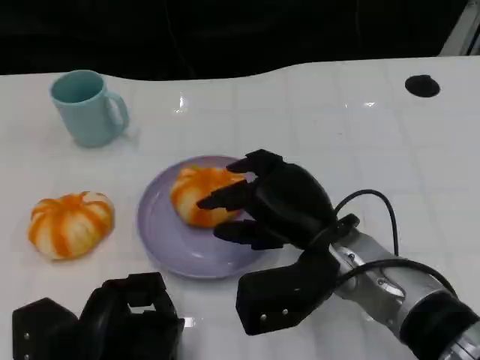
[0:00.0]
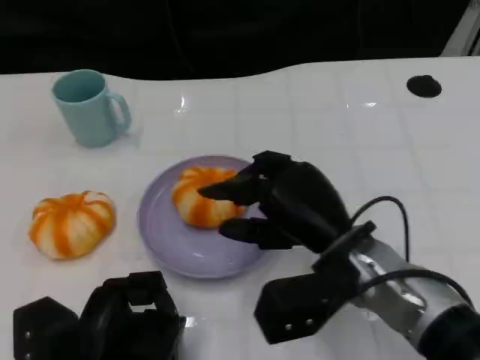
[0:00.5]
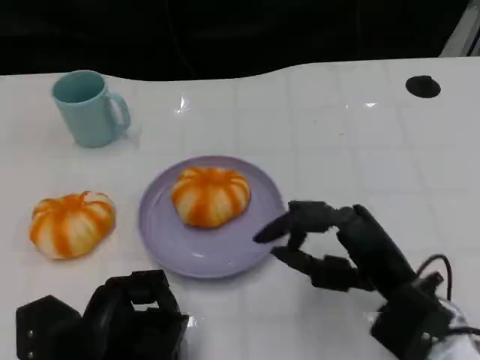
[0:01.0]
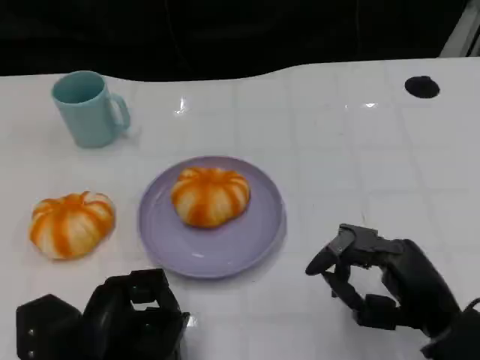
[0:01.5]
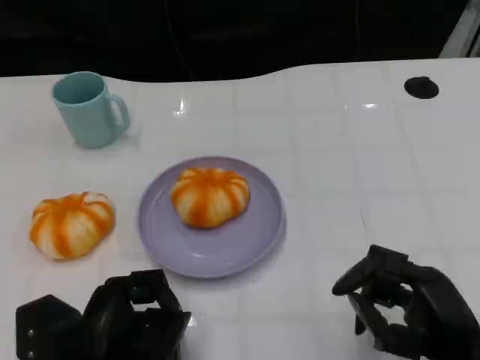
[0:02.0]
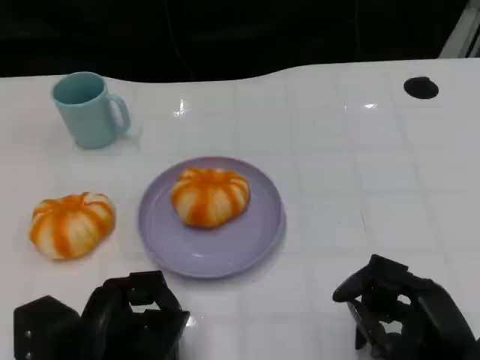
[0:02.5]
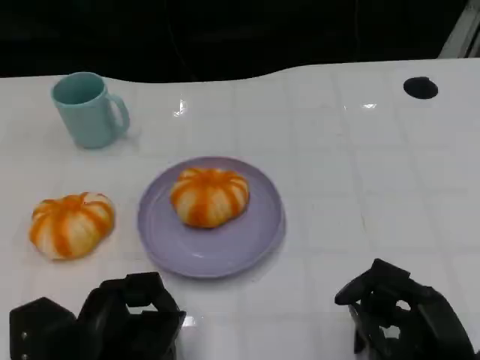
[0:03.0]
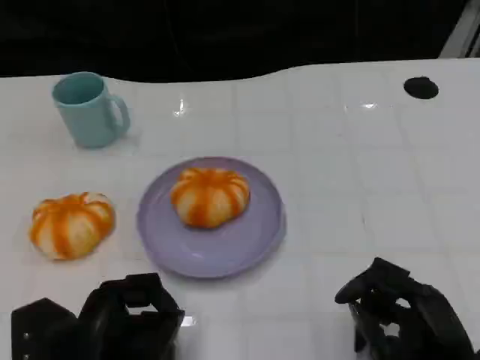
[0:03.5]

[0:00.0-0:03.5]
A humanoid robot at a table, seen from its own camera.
Task of the whole recording: Grasp the bread from the table and place it into the plate.
0:00.0 to 0:02.0: The right hand heads to the right and backward, covering approximately 15 cm.
0:02.0 to 0:03.5: The hands stay close to where they were, moving slightly.

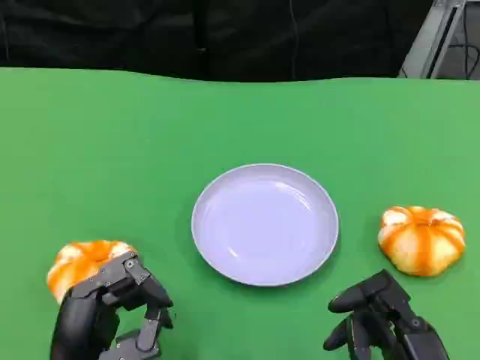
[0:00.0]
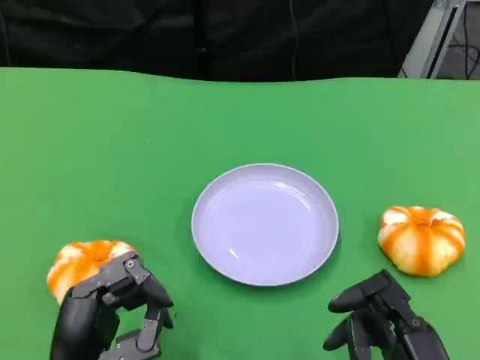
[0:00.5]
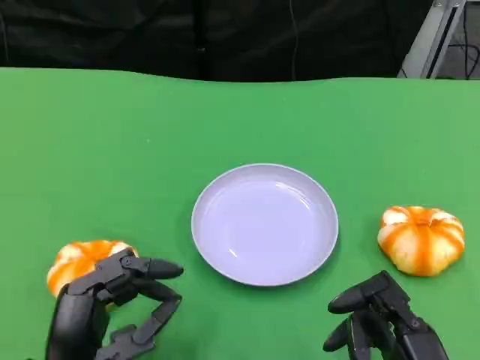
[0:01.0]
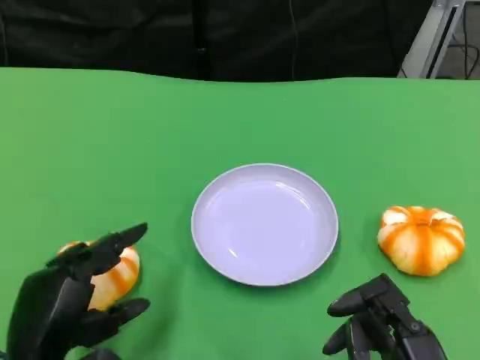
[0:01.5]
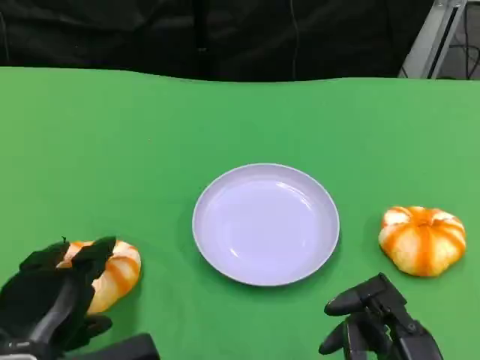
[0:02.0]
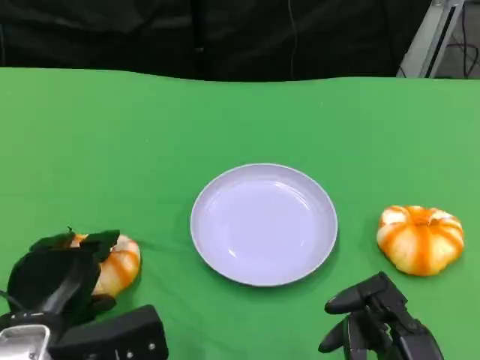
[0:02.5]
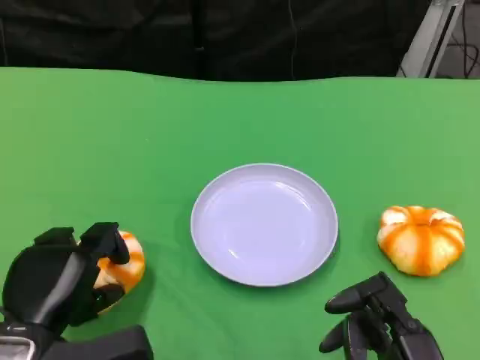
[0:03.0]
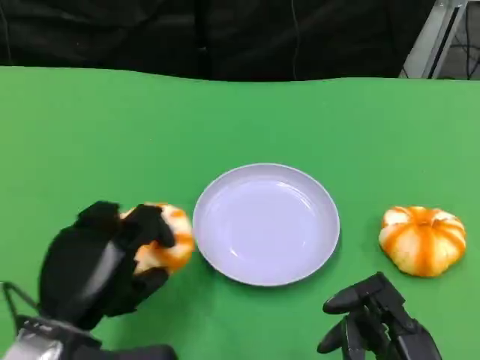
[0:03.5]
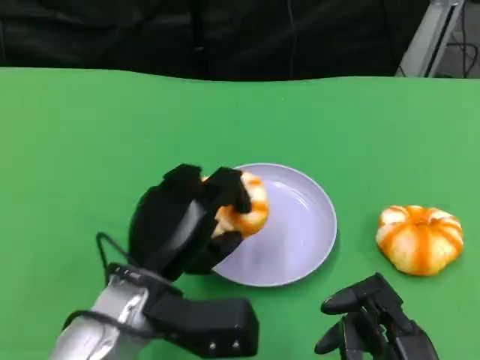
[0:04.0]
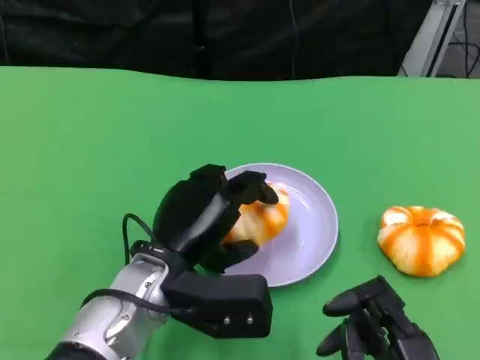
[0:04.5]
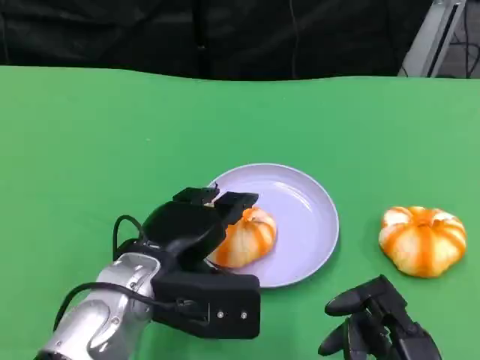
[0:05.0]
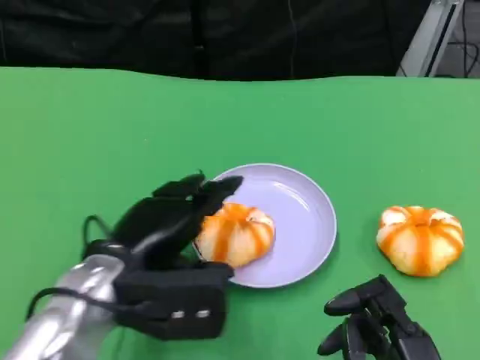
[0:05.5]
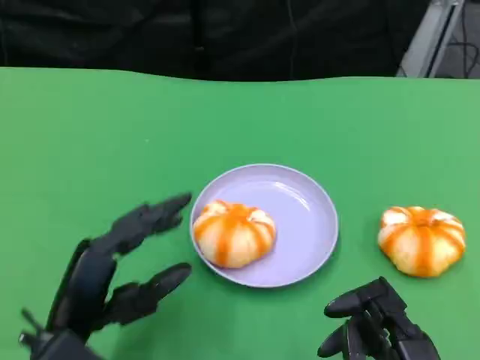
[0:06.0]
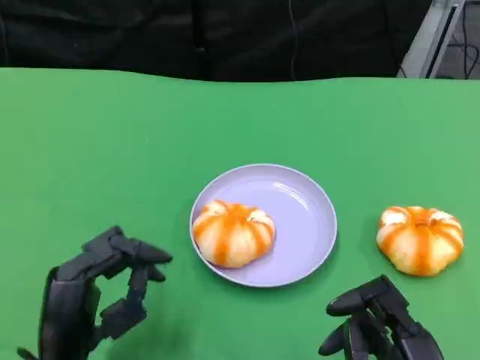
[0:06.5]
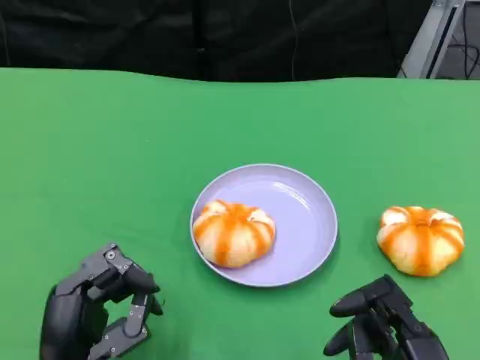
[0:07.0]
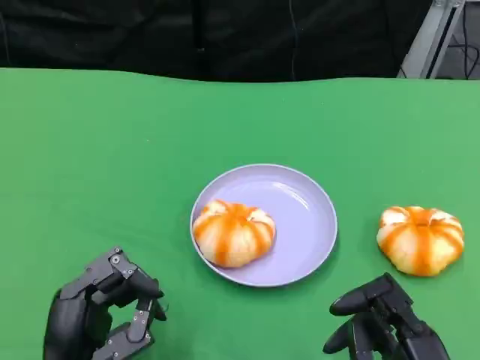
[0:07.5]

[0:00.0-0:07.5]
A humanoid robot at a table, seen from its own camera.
Task of the whole recording: Grasp the bread from the table and place it into the plate.
0:02.0 to 0:04.0: The left hand travels to the right and forward by about 10 cm.
0:04.0 to 0:05.5: The left hand moves some 5 cm.
0:05.5 to 0:07.5: The left hand shifts approximately 10 cm backward and downward.

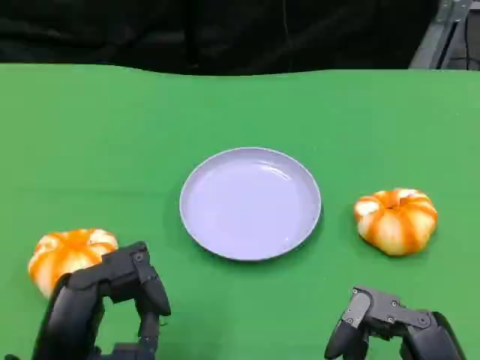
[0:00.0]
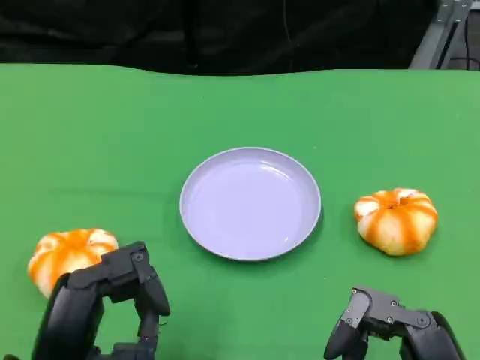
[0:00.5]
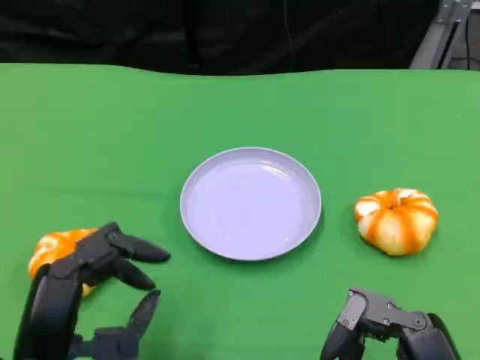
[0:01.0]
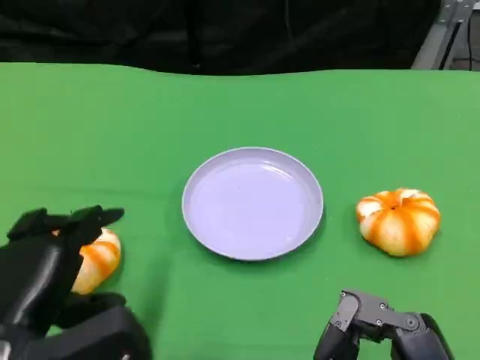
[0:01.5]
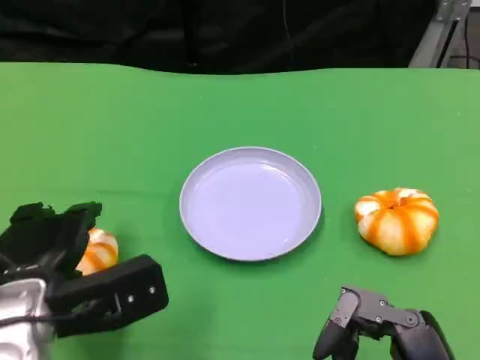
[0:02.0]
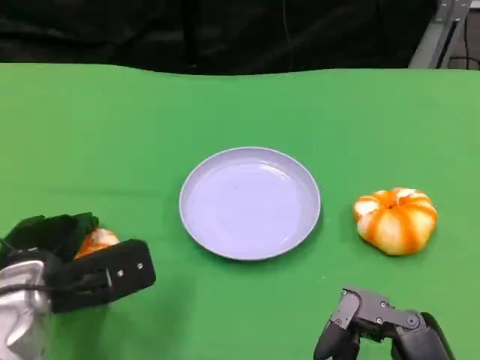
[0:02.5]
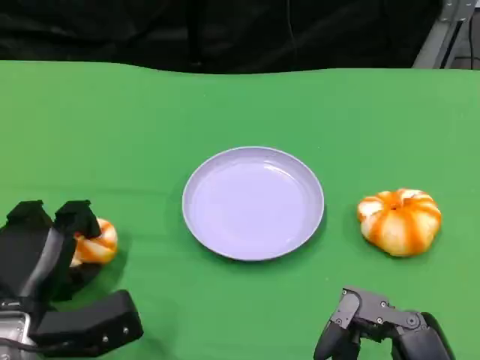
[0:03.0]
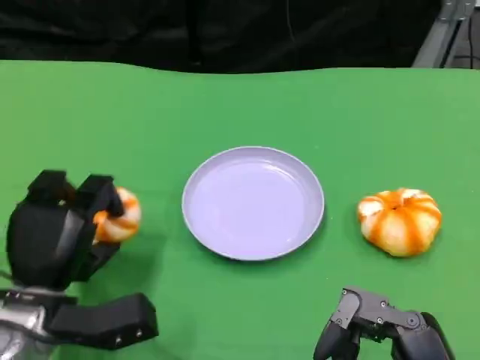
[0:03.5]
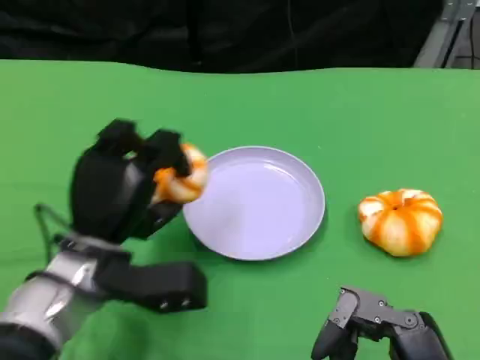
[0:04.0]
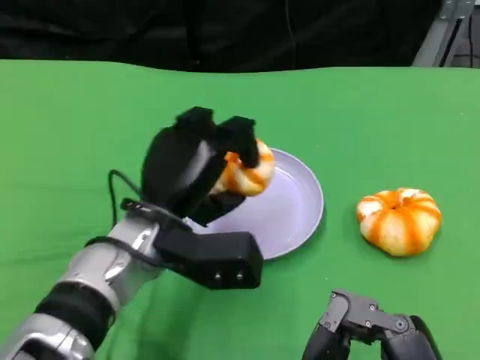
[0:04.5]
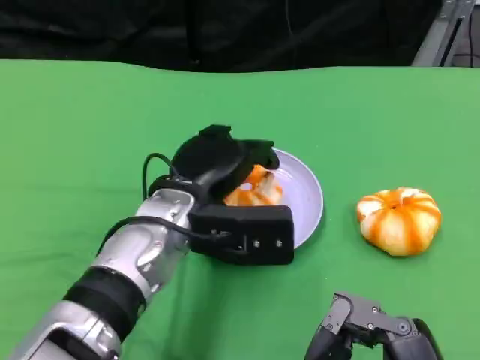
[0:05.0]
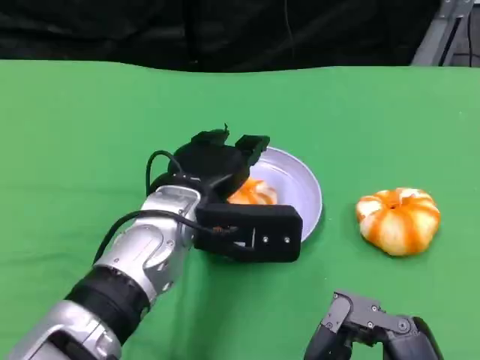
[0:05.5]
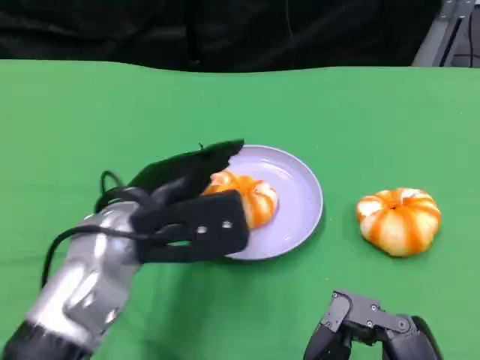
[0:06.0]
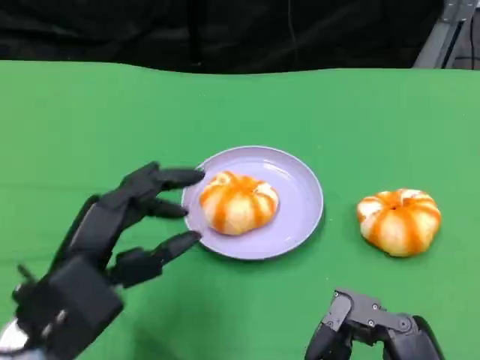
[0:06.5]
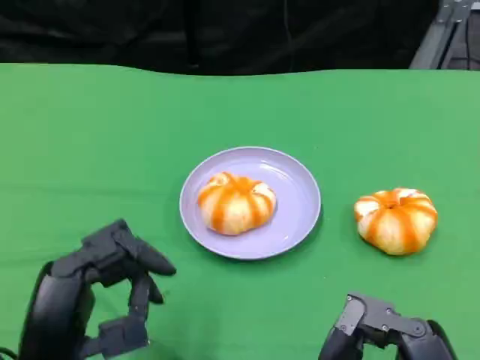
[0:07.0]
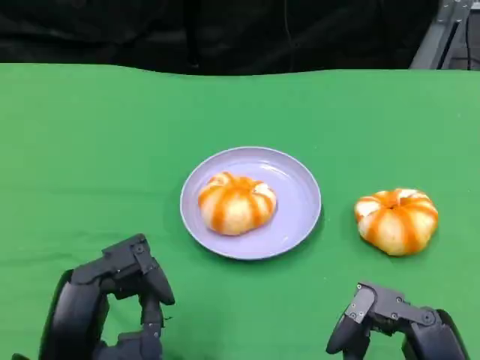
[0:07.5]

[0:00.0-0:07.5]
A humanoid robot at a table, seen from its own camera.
Task of the whole recording: Grasp the bread from the table and place it into the plate.
0:00.0 to 0:02.0: The left hand travels forward by approximately 10 cm.
0:02.0 to 0:04.0: The left hand heads to the right, covering some 5 cm.
0:04.0 to 0:05.5: The left hand travels to the right by roughly 5 cm.
0:05.5 to 0:07.5: The left hand travels backward and to the left by roughly 20 cm.

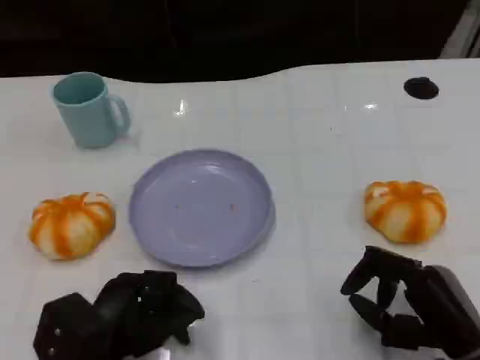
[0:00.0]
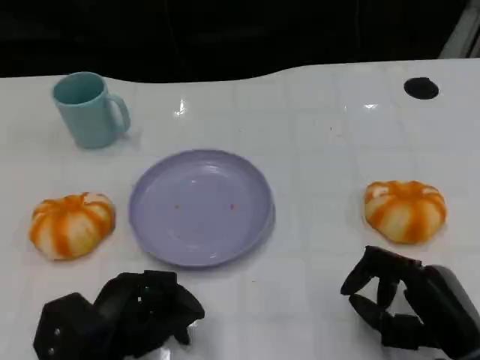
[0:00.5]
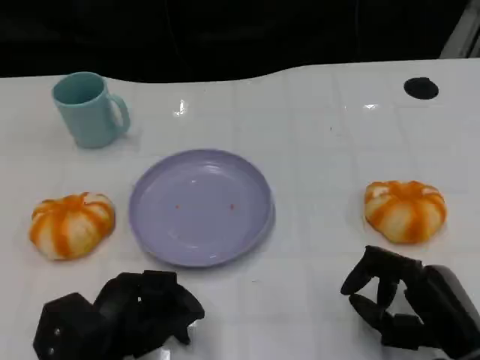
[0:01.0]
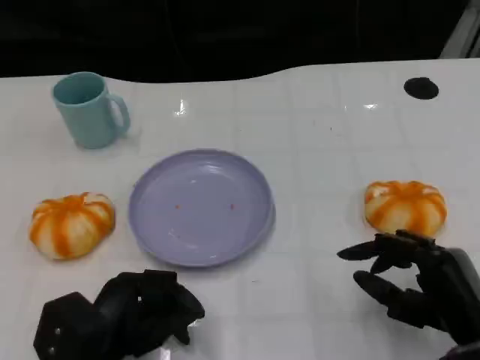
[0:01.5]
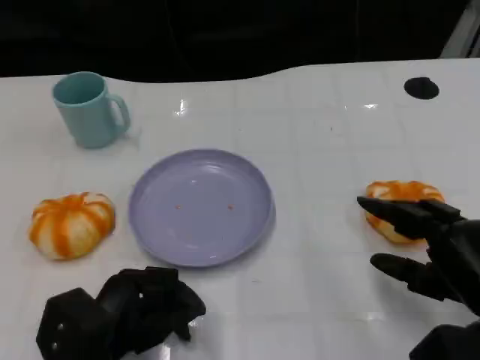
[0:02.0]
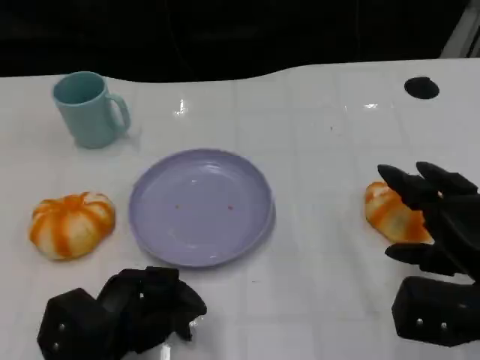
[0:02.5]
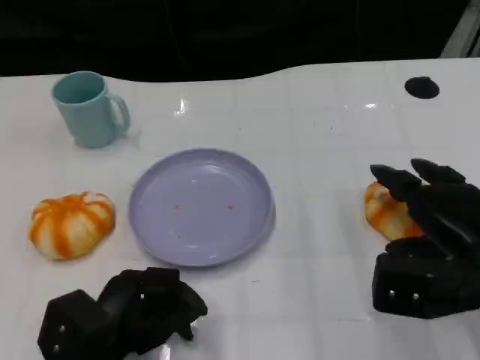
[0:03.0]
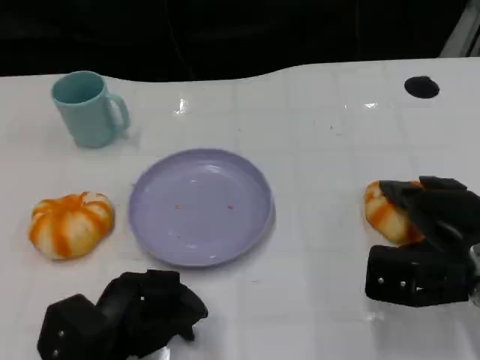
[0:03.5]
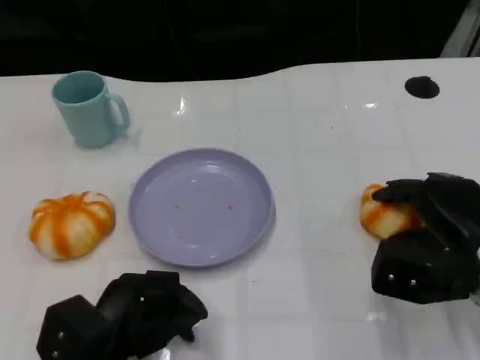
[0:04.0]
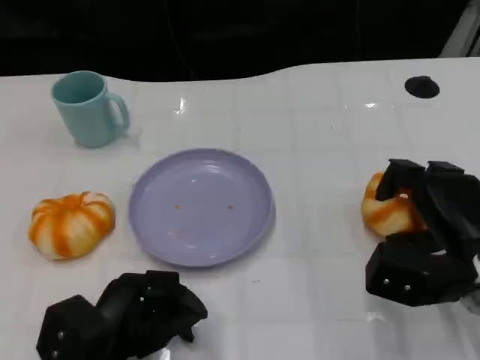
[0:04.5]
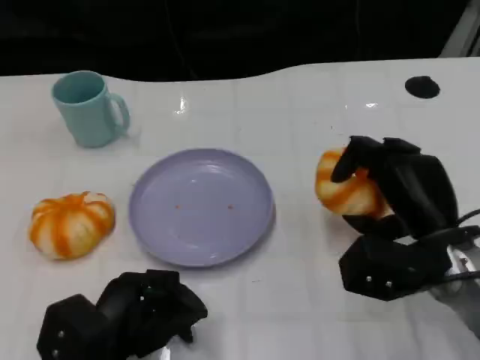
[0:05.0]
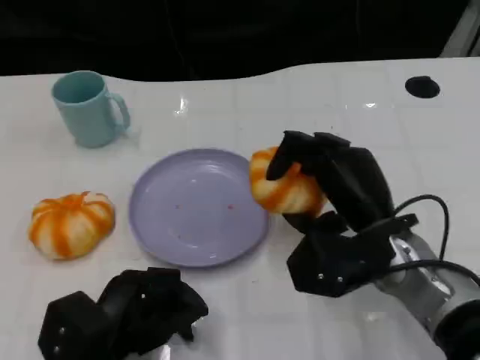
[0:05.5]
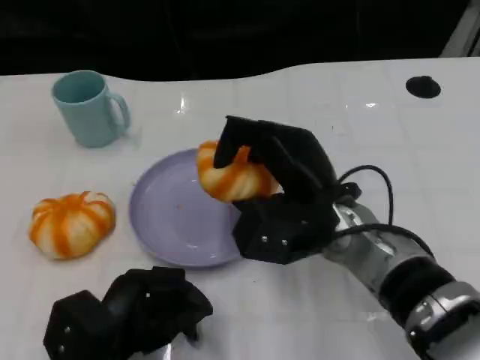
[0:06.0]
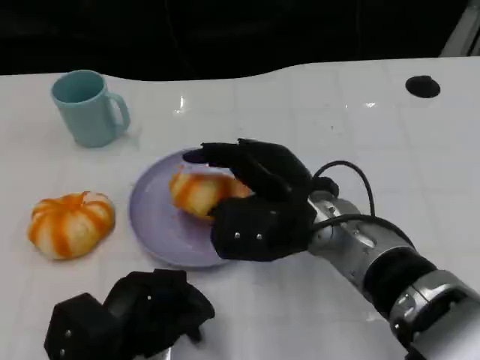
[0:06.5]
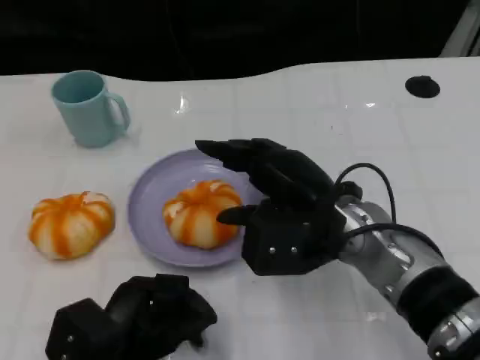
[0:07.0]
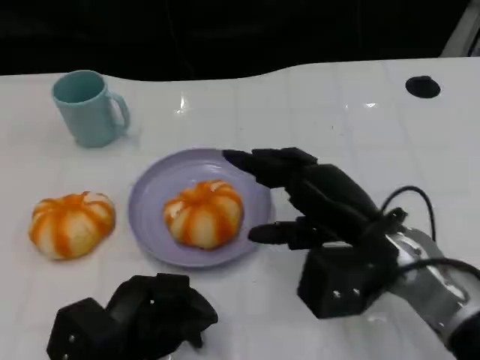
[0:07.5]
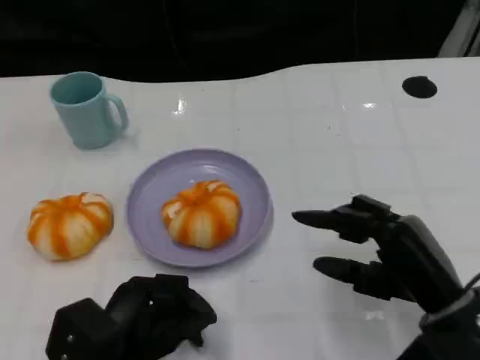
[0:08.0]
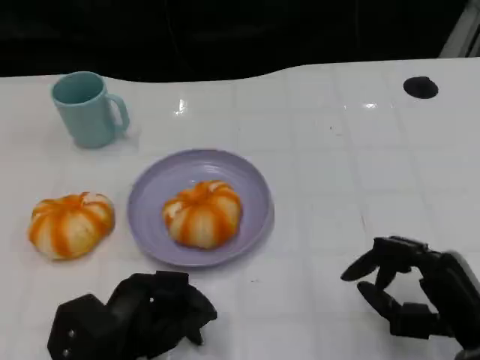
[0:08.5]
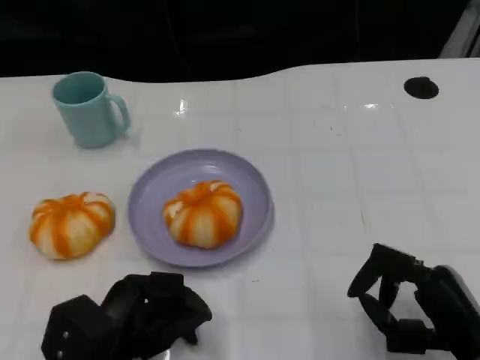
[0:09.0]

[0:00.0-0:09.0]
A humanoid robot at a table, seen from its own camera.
Task of the whole recording: Grasp the bread from the table and place it into the plate.
0:00.0 to 0:02.0: The hands move only a little.
0:02.0 to 0:04.5: The right hand goes roughly 5 cm forward.
0:04.5 to 0:07.0: The right hand moves to the left and upward, roughly 15 cm.
0:07.0 to 0:09.0: The right hand shifts roughly 20 cm to the right, backward and downward.
